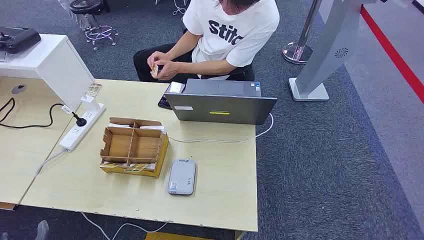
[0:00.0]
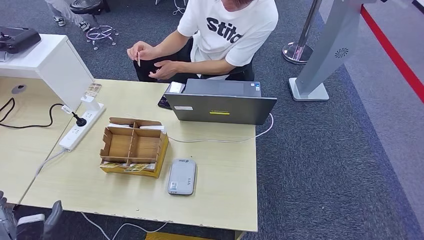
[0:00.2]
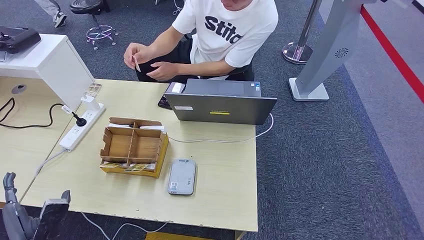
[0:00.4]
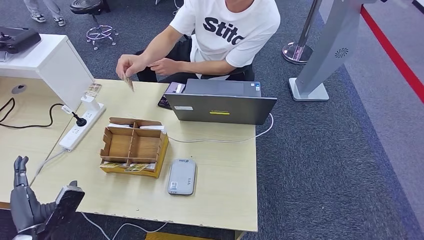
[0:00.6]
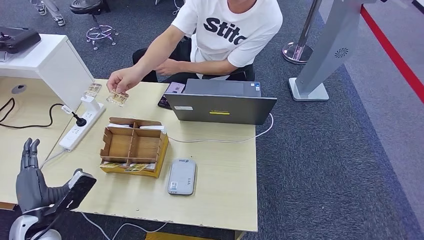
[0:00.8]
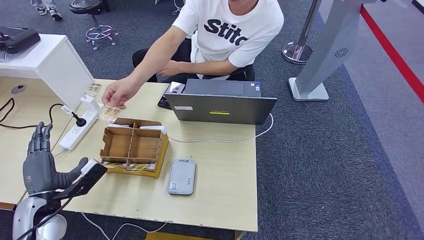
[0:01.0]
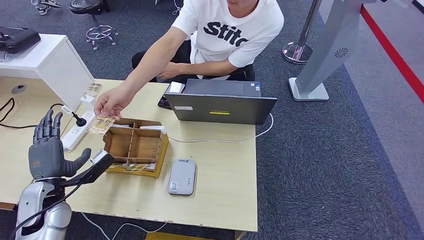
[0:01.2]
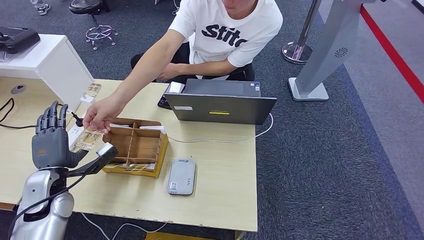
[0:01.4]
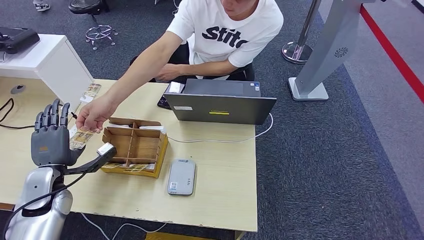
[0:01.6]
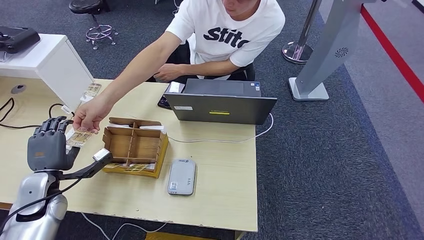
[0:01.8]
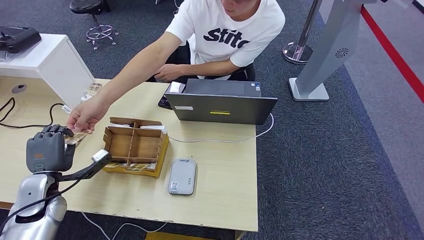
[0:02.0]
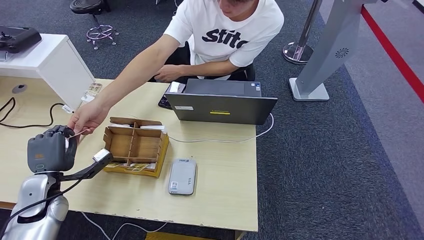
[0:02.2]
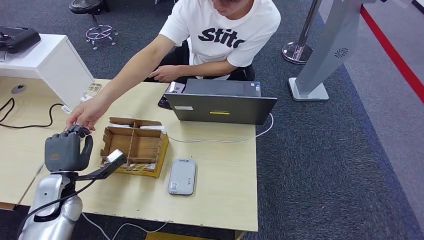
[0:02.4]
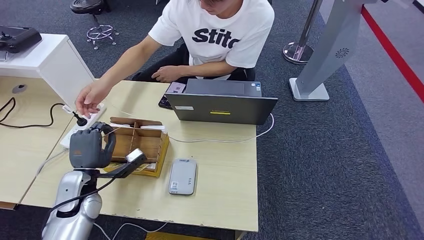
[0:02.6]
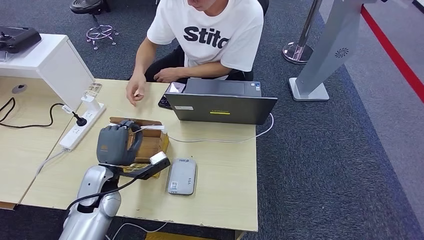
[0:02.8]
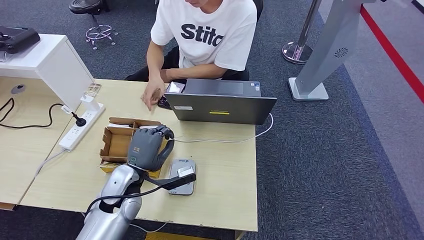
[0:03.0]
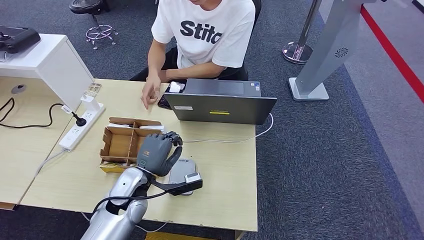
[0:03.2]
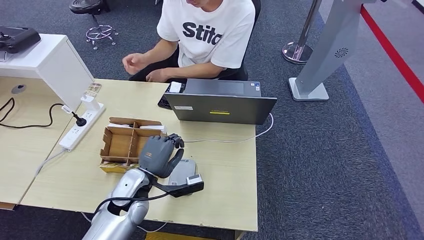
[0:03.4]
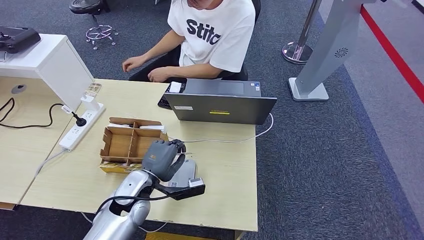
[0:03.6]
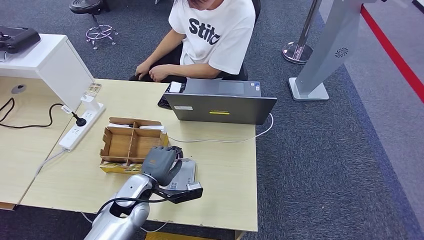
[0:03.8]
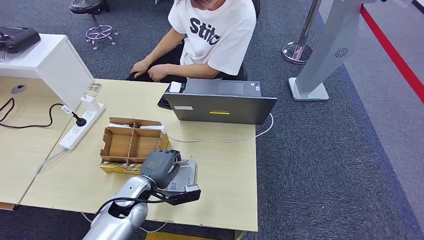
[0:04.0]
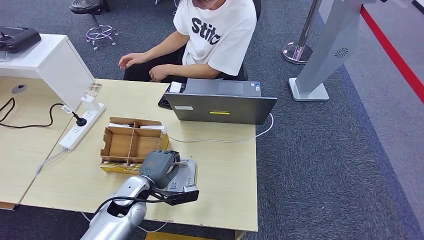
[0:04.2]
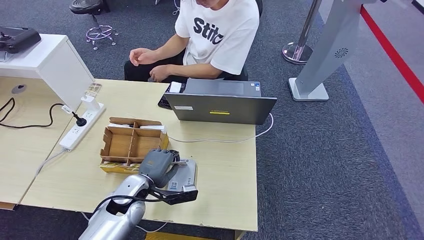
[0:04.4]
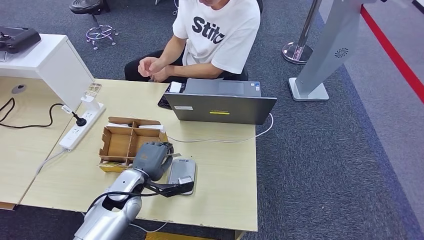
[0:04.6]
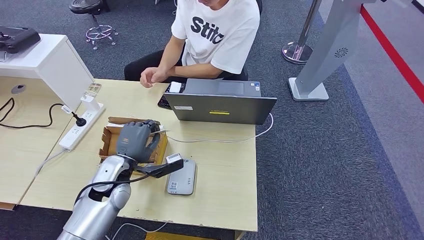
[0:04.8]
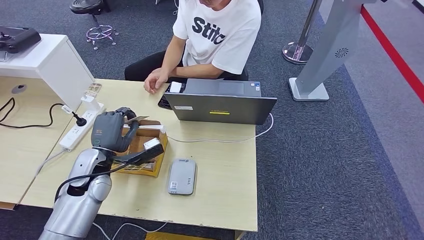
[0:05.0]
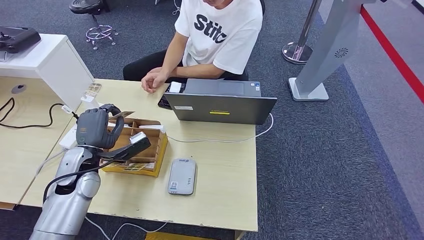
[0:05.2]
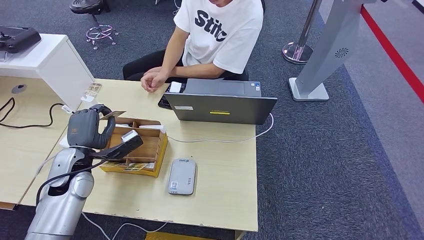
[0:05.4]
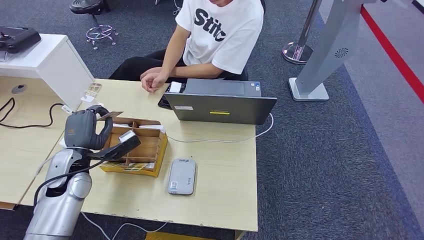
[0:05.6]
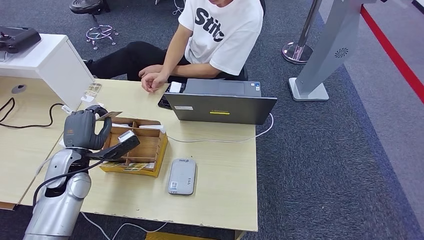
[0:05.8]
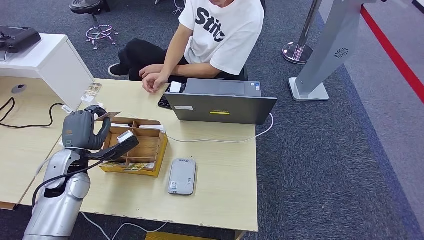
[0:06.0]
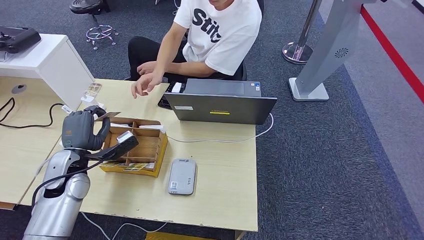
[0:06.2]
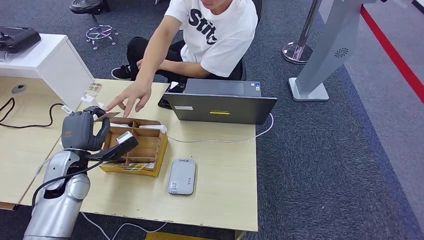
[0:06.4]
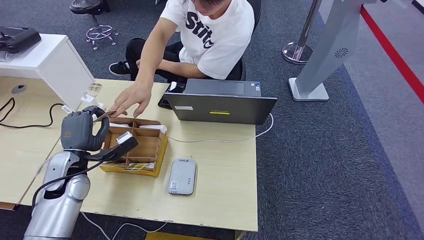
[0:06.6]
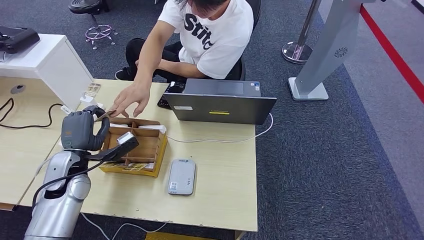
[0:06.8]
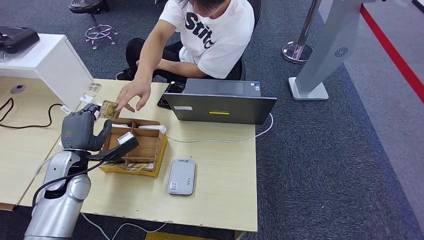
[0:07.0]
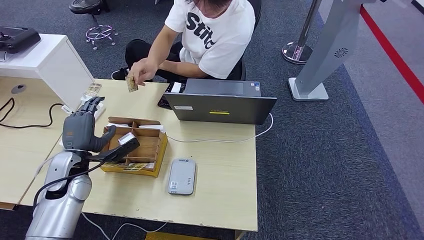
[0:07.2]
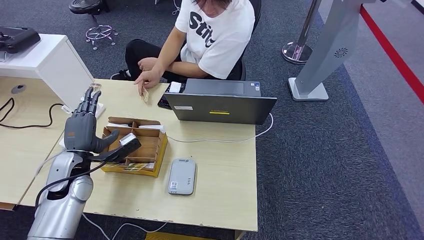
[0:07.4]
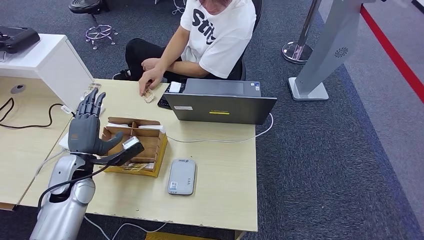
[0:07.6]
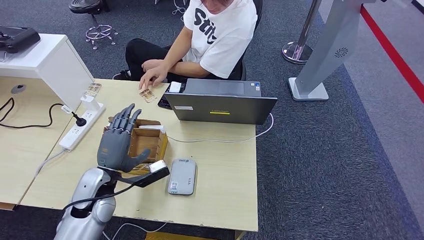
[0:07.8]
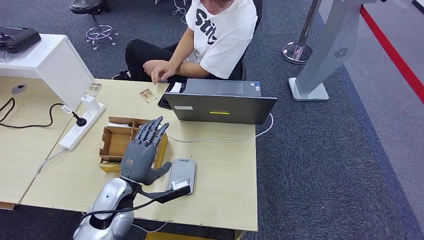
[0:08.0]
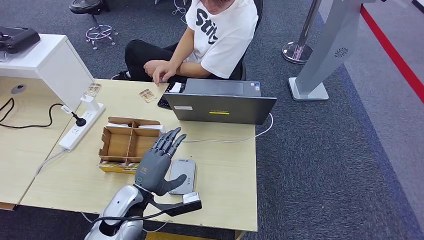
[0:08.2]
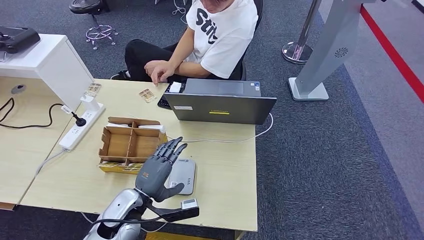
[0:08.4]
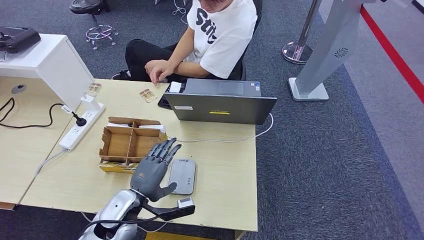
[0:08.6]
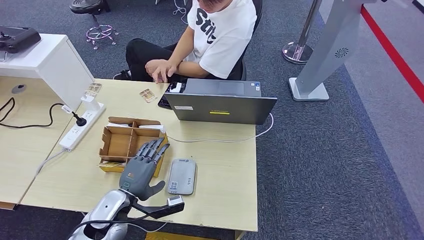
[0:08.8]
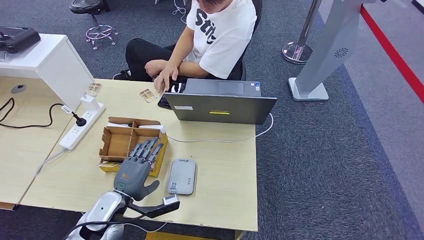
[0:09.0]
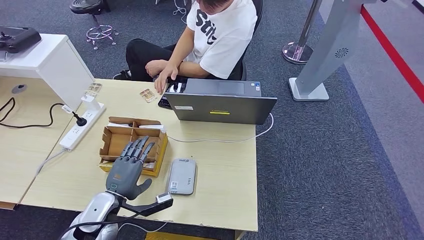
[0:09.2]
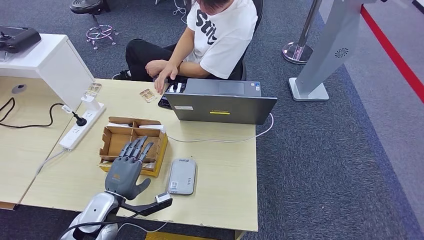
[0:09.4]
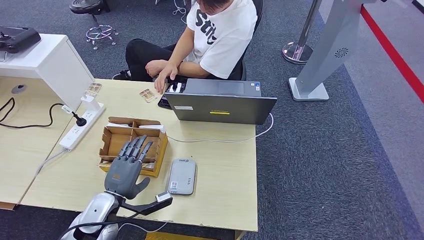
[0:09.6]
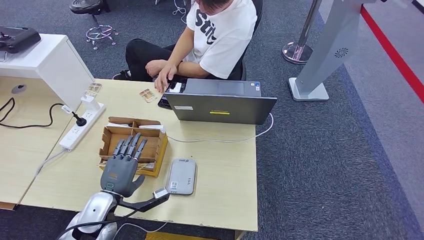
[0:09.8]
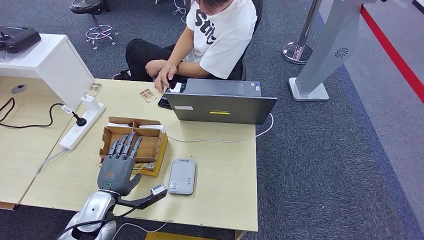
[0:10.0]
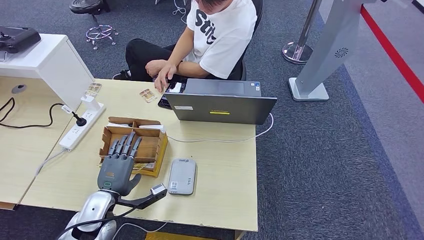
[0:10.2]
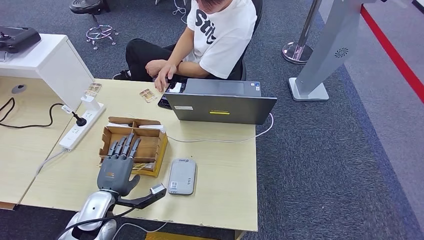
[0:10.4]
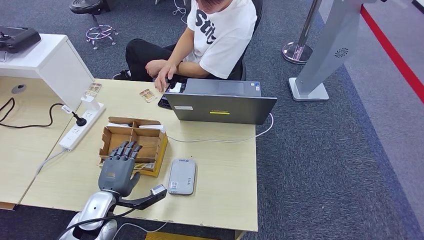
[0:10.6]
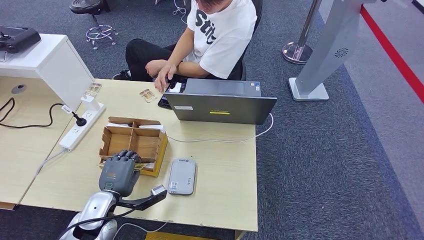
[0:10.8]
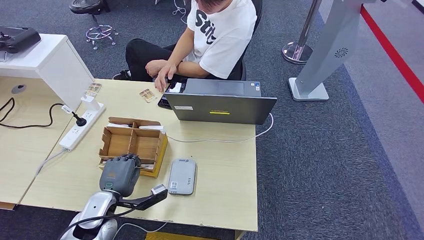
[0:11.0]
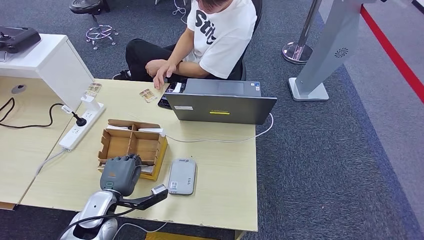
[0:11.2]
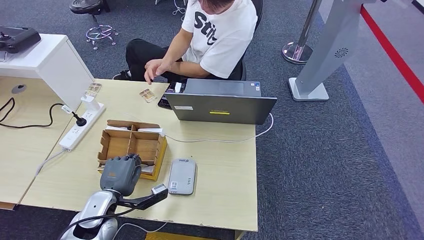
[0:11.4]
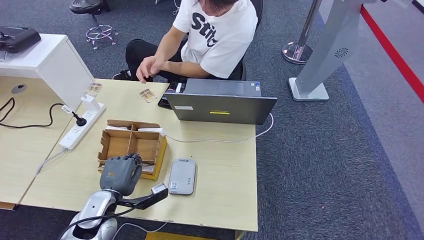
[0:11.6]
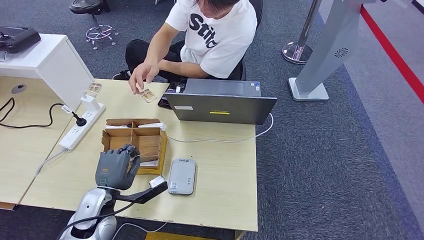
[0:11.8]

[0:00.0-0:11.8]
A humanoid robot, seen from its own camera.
Step, 0:00.0 to 0:03.2: Take the ID card from the person's hand.
Step, 0:03.4 to 0:04.0: Place the ID card on the card reader.
Step, 0:04.2 to 0:07.4: Hand the ID card to the person.
0:03.0 to 0:04.4: The left hand goes roughly 5 cm downward.
0:04.4 to 0:06.0: The left hand is displaced to the left and upward by approximately 15 cm.
0:06.0 to 0:07.4: Both hands stay put.
0:07.4 to 0:08.8: The left hand travels to the right, backward and downward by about 15 cm.
0:10.4 to 0:11.8: The hands stay close to where they were, moving slightly.

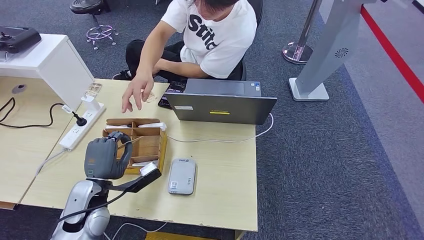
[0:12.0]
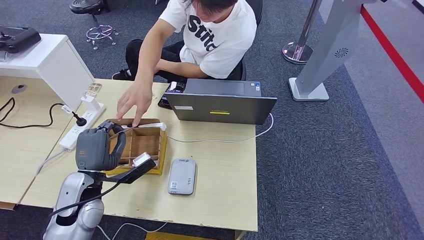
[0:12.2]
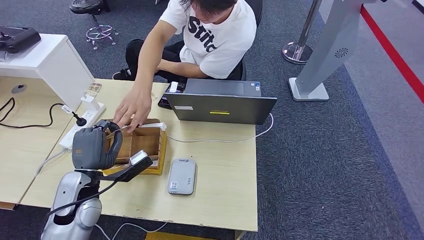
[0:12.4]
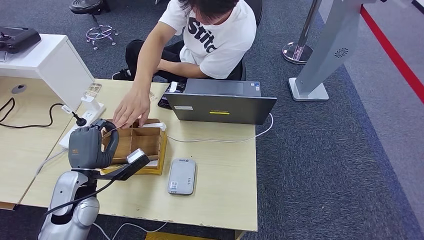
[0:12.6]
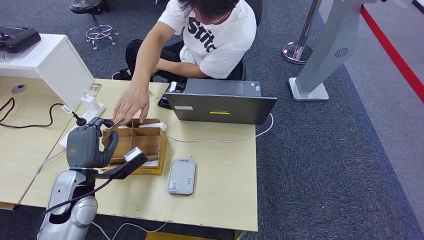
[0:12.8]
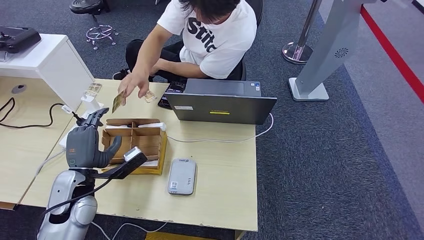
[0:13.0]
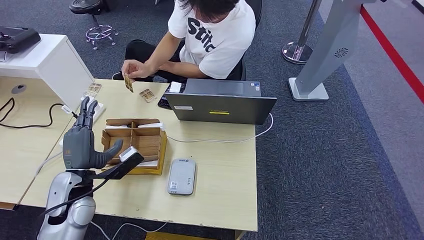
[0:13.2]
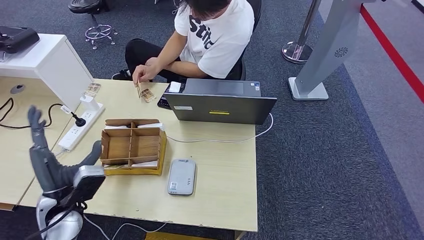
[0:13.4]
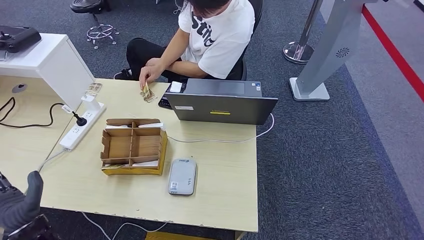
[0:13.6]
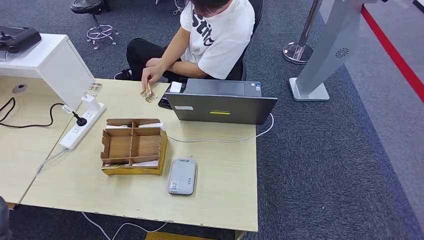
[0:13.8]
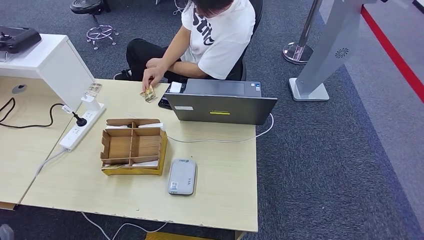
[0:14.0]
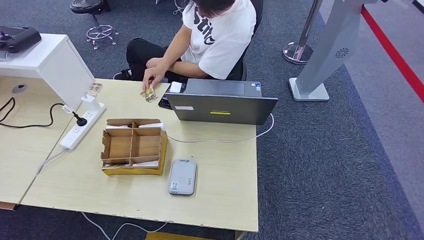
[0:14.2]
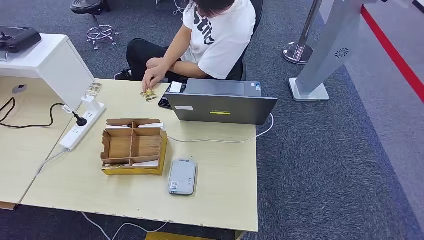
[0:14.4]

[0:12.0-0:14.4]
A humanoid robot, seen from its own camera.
Step, 0:12.2 to 0:14.2: Hand the room key to the person.
0:12.0 to 0:13.2: There are only small adjustments of the hands.
0:13.2 to 0:14.4: The left hand goes approximately 35 cm backward and downward.

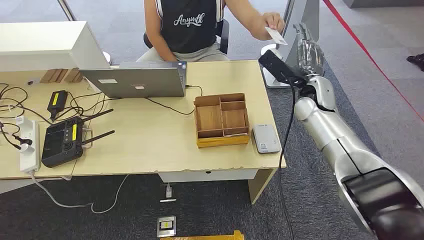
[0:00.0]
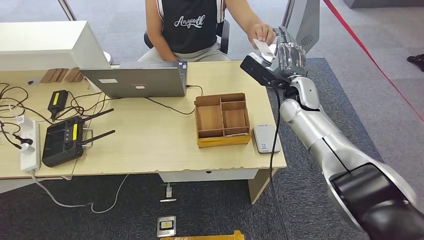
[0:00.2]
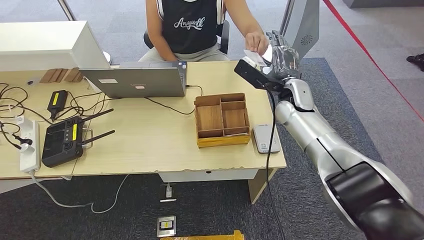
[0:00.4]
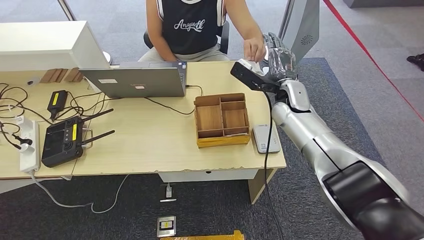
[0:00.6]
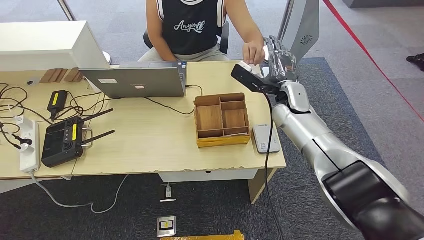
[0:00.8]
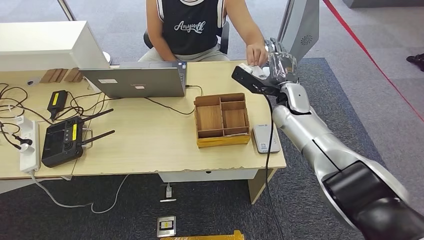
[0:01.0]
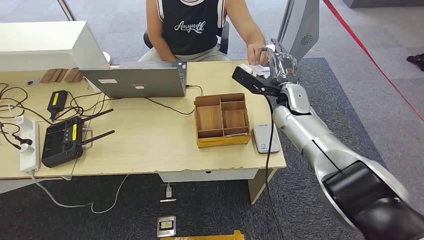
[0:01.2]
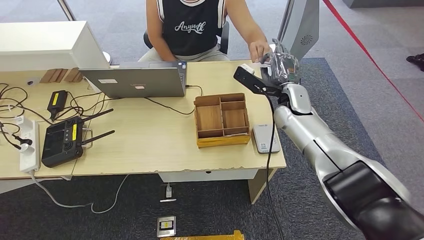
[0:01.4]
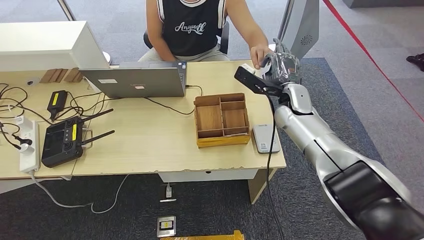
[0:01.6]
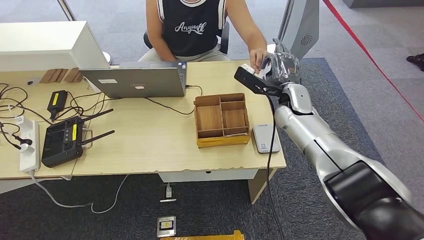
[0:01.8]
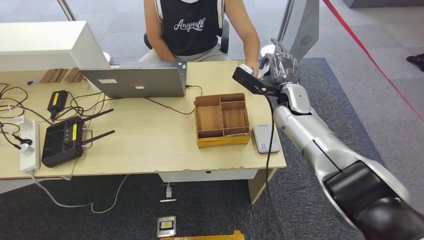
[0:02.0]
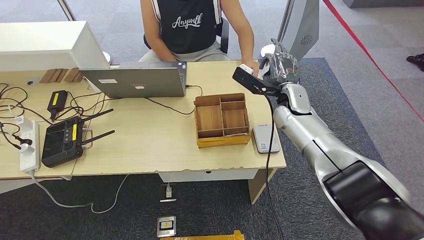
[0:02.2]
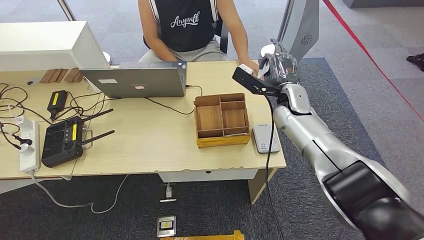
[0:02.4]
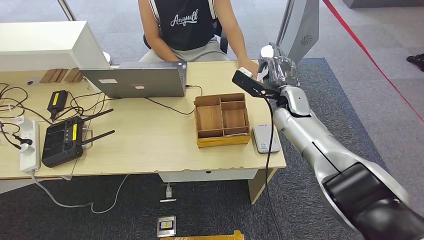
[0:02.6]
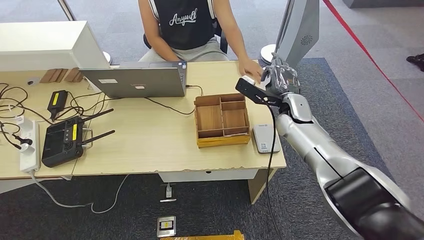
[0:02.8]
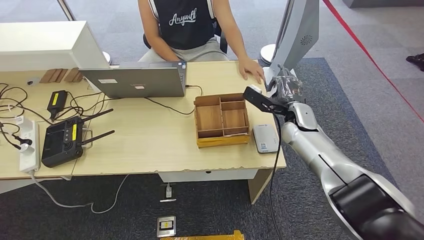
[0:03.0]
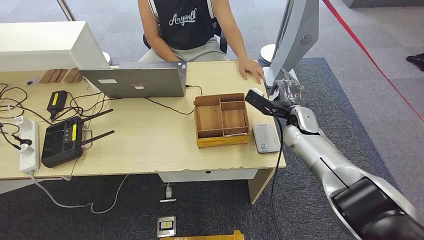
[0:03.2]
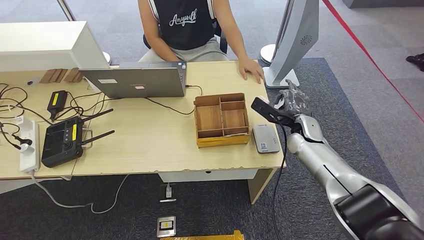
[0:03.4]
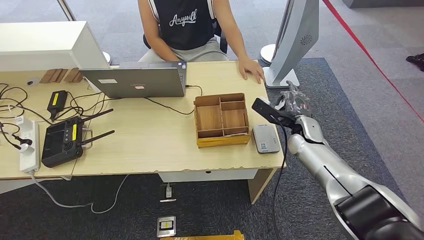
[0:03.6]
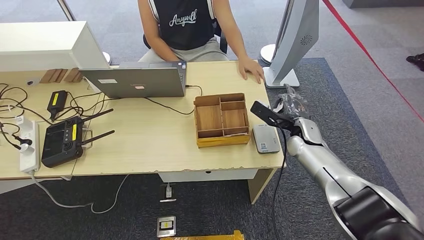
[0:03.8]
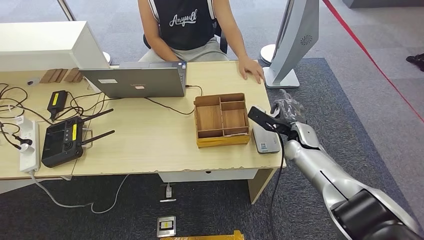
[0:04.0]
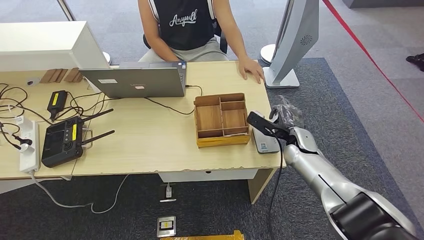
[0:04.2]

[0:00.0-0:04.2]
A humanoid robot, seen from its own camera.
Step, 0:00.0 to 0:02.2: Take the ID card from the person's hand.
0:01.4 to 0:02.8: There are only small adjustments of the hands.
0:02.8 to 0:04.2: The right hand is displaced downward by approximately 10 cm.
